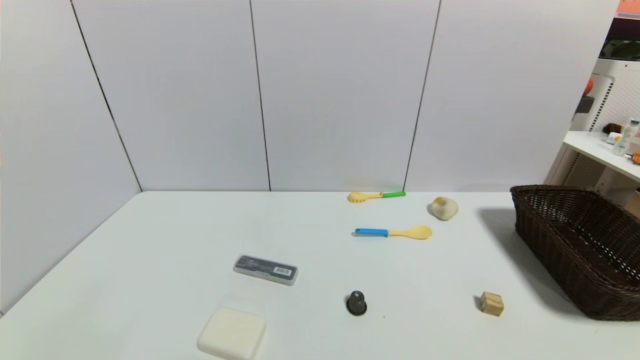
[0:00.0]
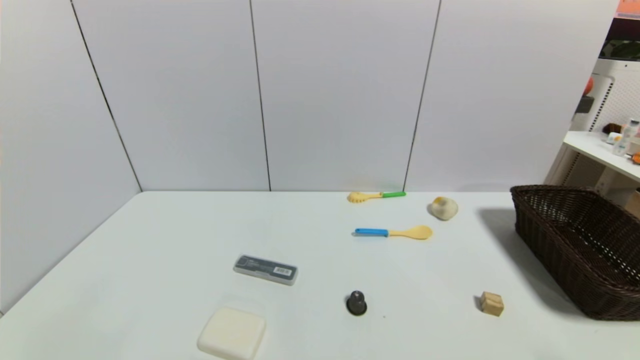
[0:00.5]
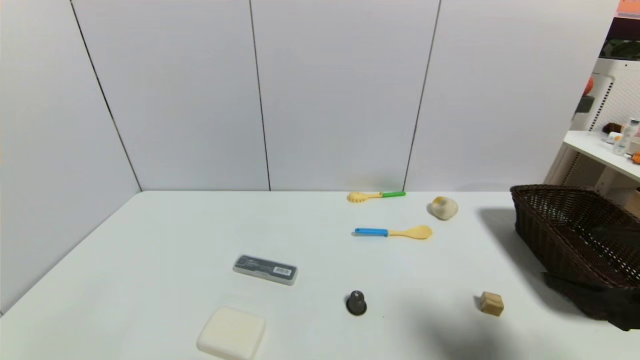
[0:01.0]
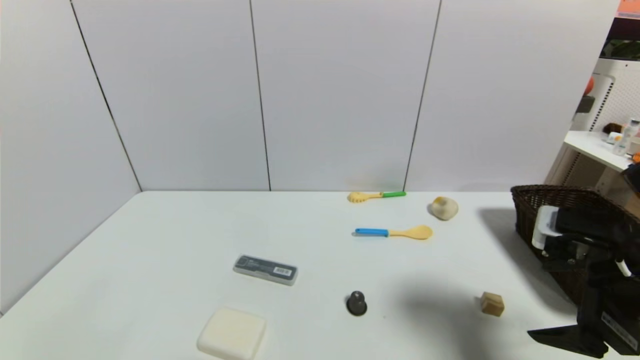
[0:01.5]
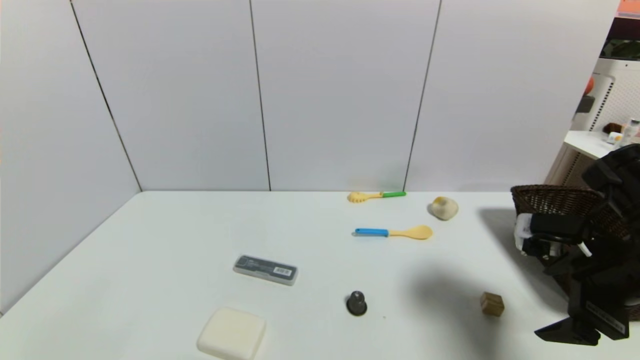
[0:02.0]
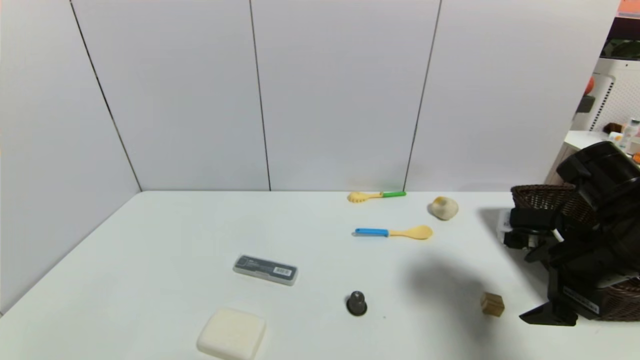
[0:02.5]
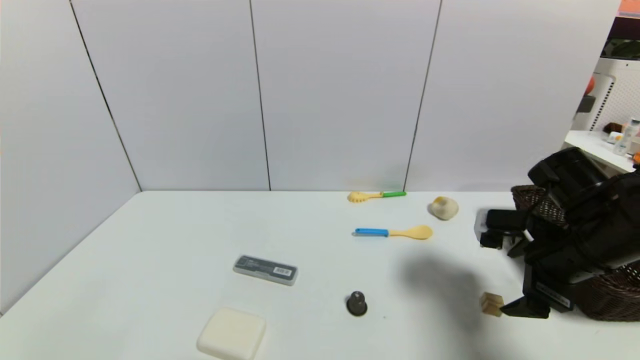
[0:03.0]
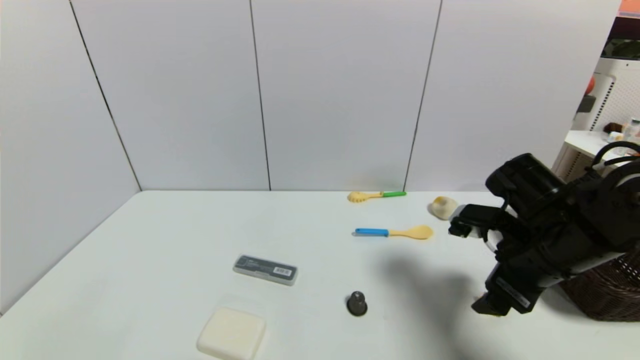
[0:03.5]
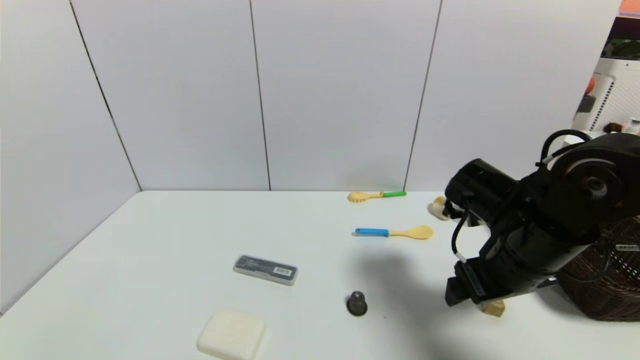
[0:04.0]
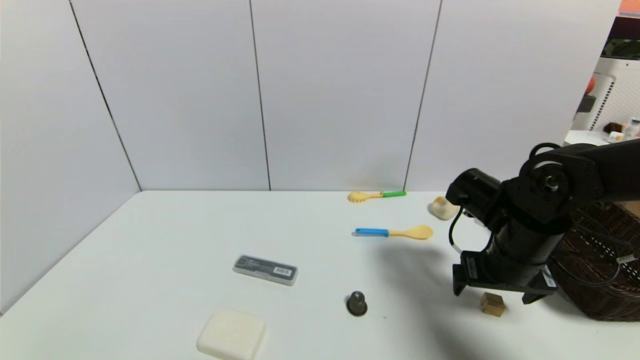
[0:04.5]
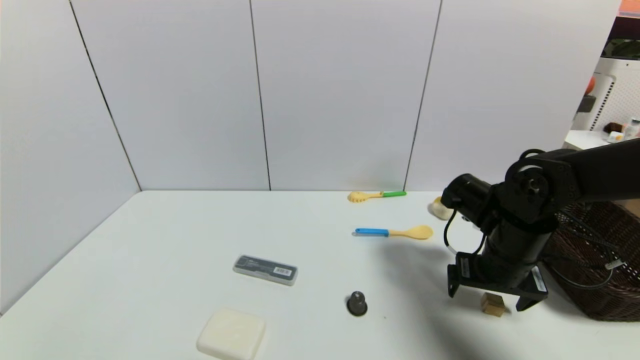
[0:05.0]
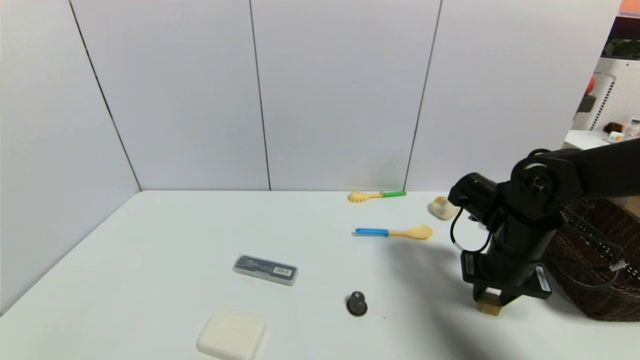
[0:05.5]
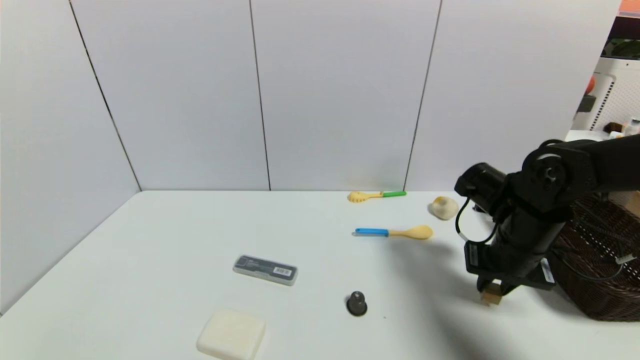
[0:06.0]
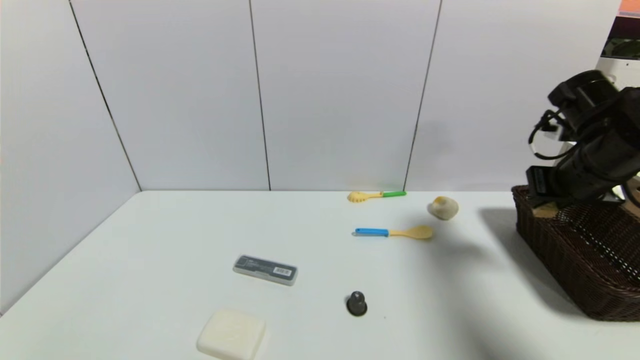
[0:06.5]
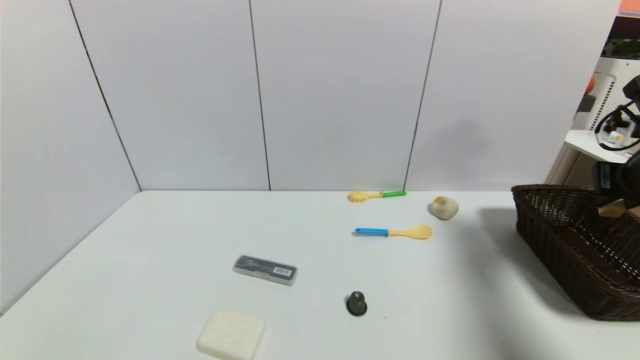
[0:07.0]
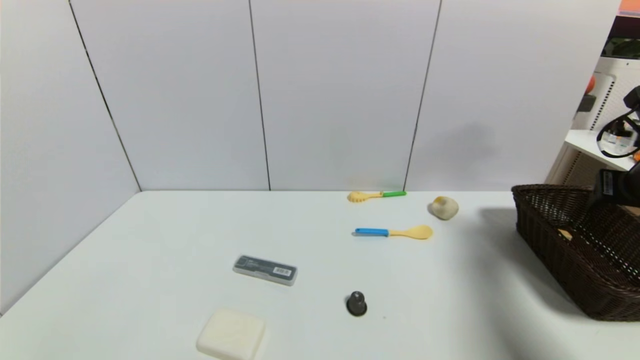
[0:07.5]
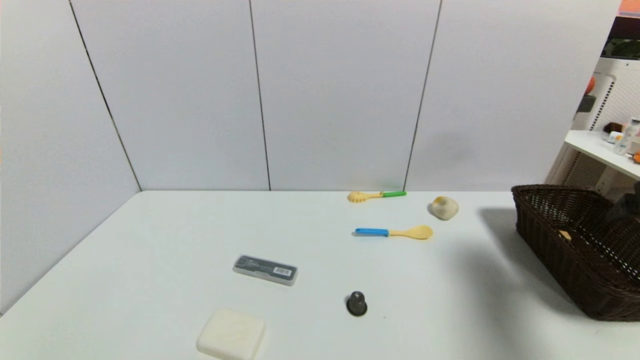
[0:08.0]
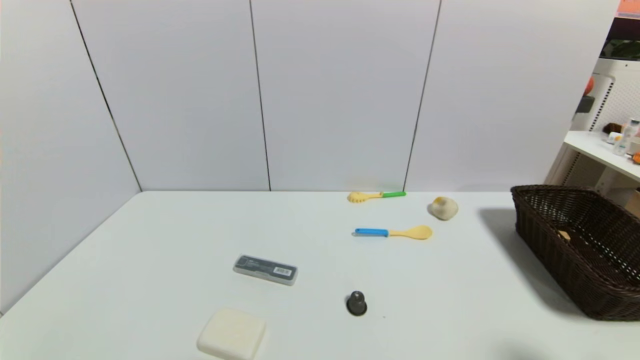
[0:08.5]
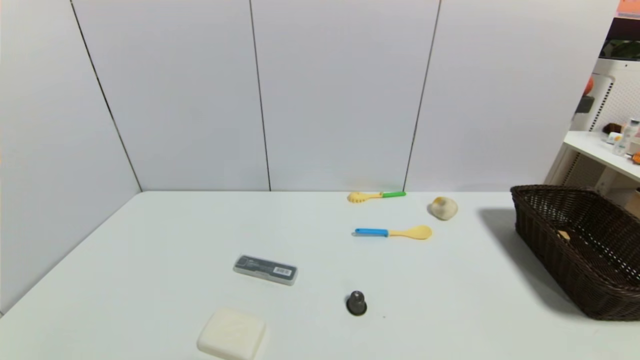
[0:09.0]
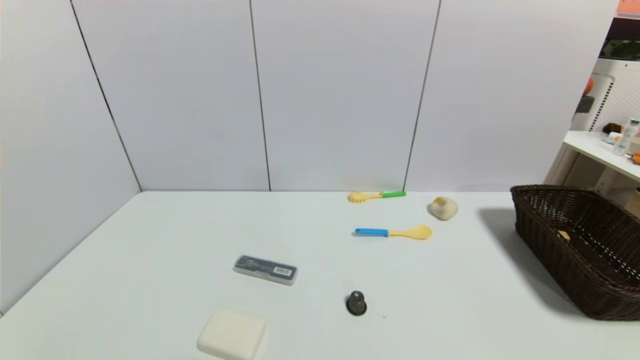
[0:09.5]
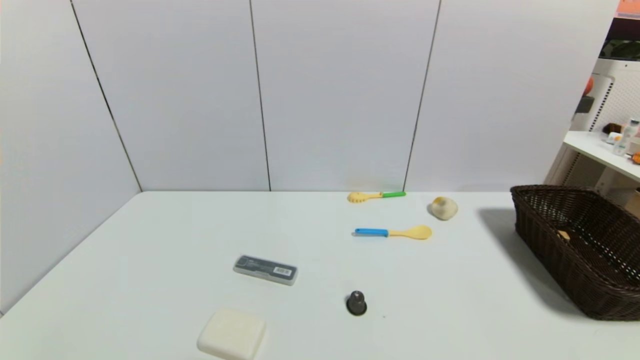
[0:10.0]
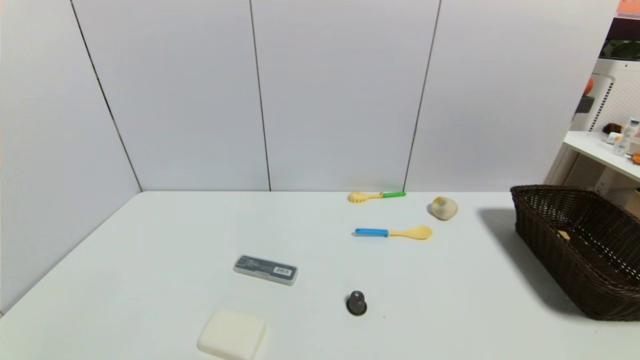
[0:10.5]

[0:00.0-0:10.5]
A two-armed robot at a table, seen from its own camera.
Task of the whole recording: use a gripper to pick the target object and place on the brown basket.
Step, 0:00.0 to 0:05.5: Grasp the square wooden block with the right gripper.
Step, 0:06.0 to 0:07.5: Place the square wooden block into the basket with the right gripper.
0:00.0 to 0:02.0: The right gripper travels forward and upward by approximately 25 cm.
0:02.0 to 0:04.0: The right gripper travels to the left by roughly 10 cm.
0:04.0 to 0:06.5: The right gripper is displaced to the right, upward and forward by approximately 15 cm, and closes.
0:06.5 to 0:08.5: The right gripper moves backward, about 25 cm, and opens.
